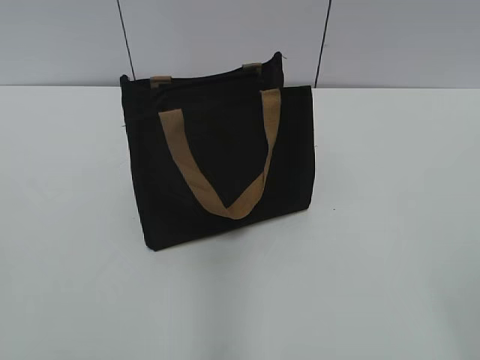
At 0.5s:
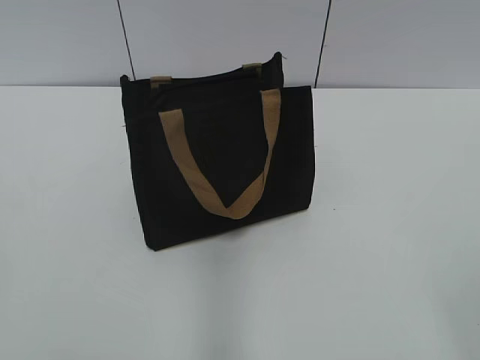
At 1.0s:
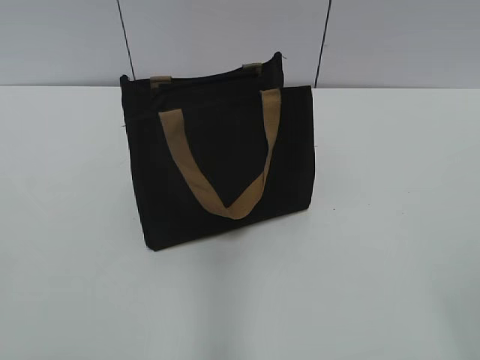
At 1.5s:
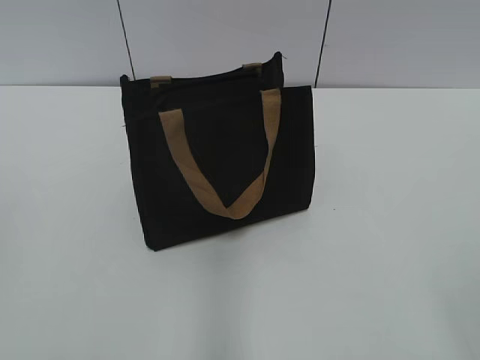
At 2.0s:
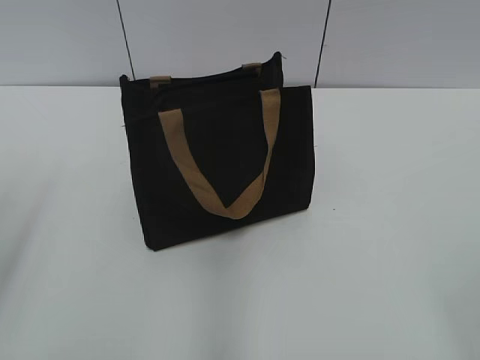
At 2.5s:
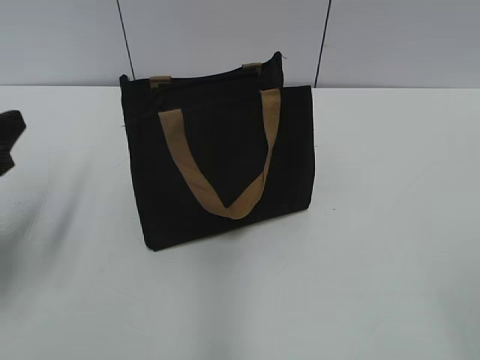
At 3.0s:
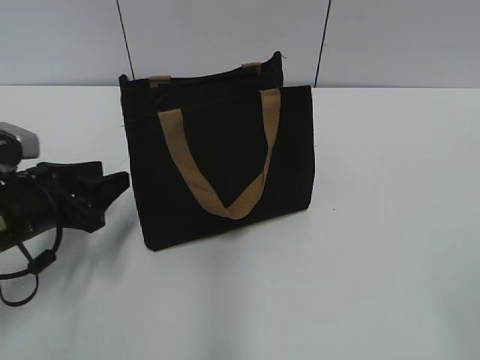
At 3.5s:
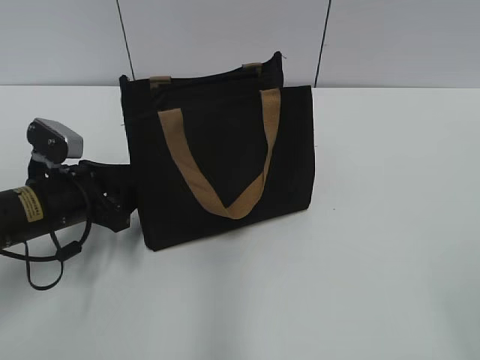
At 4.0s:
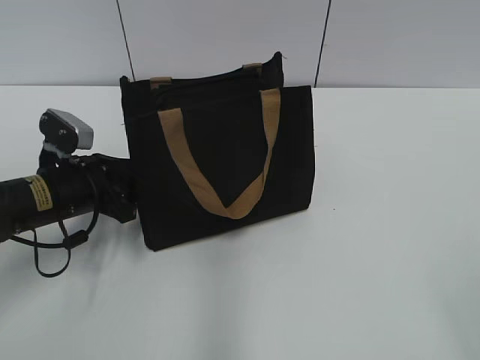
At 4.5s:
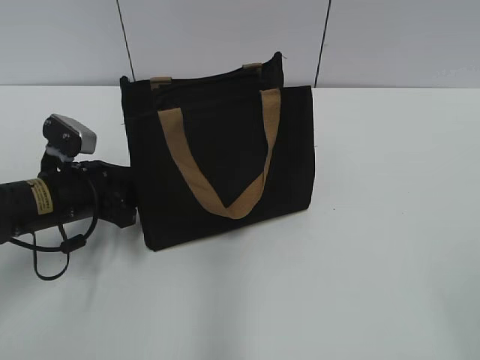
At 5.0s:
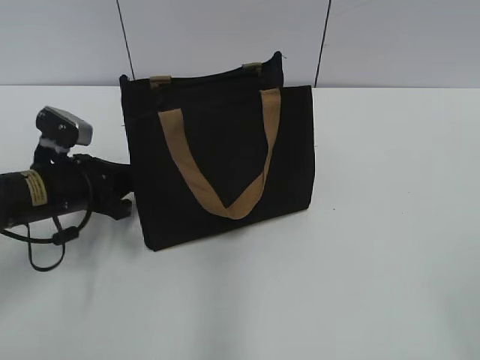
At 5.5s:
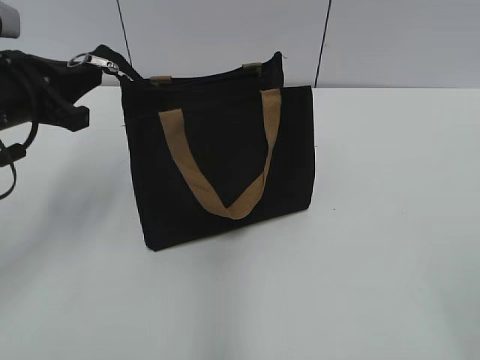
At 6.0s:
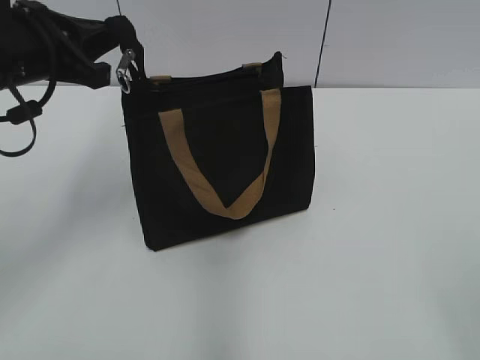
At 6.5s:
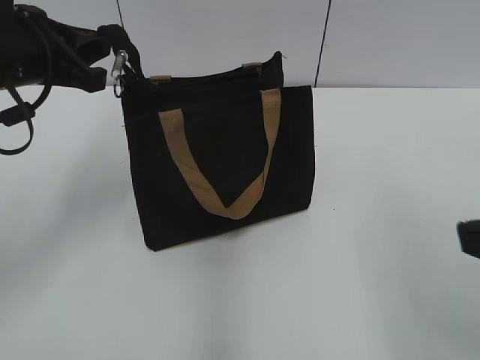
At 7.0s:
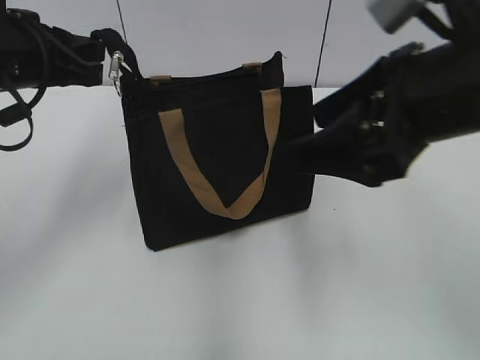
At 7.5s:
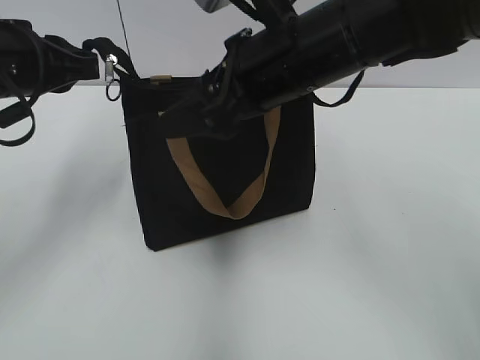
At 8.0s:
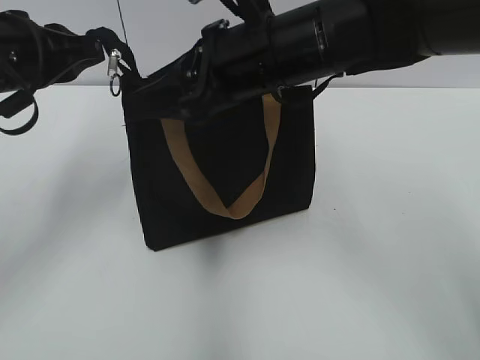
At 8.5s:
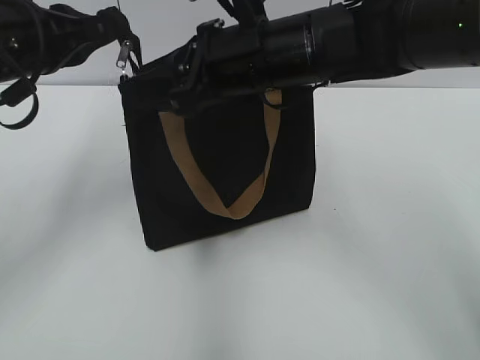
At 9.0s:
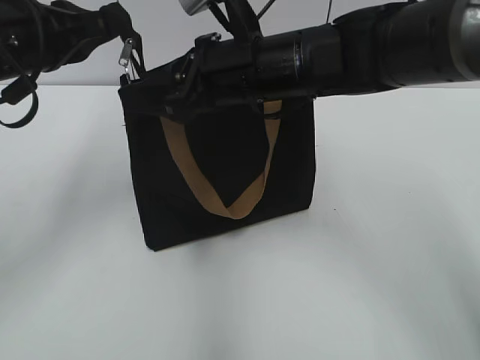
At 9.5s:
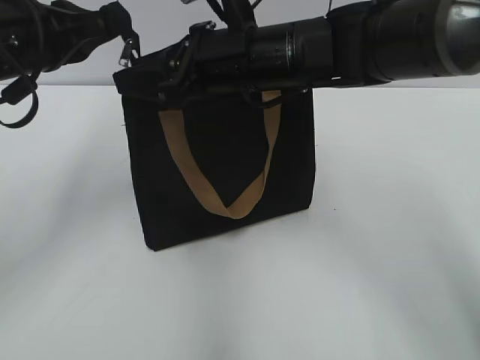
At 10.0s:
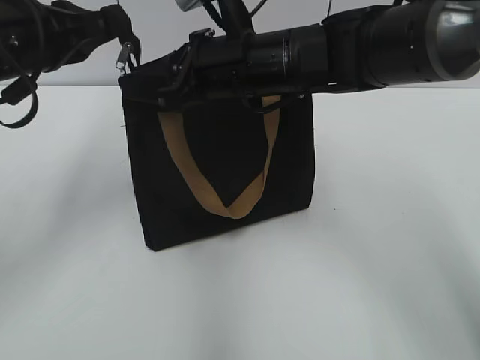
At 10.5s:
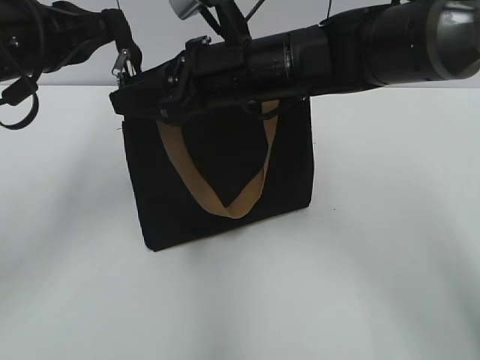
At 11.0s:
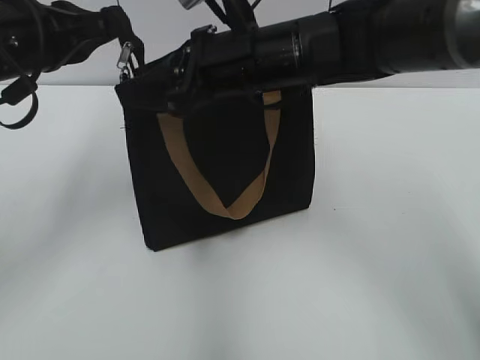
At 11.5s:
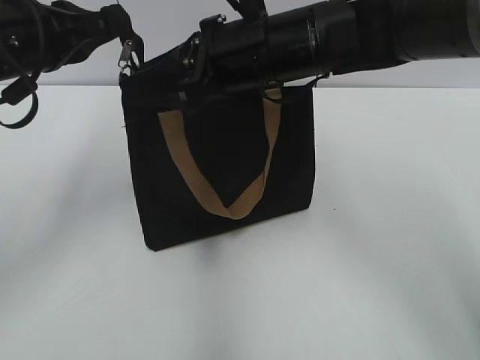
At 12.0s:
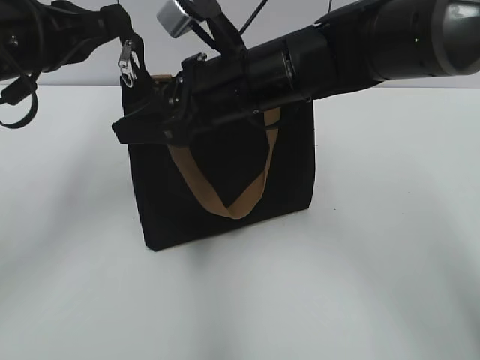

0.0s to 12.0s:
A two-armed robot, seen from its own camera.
2.0s to 4.0s: The left gripper travels downward, forward and to the right by approximately 30 cm.
4.0s to 6.0s: The left gripper goes approximately 15 cm upward, and closes its fingers.
6.0s to 8.0s: The right gripper heads forward and to the left, covering about 40 cm, and closes its fingers.
8.0s to 10.0s: The right gripper shifts by roughly 5 cm.
10.0s to 12.0s: There are only small adjustments of the grippers.

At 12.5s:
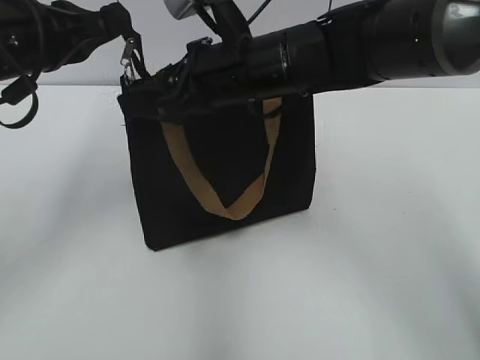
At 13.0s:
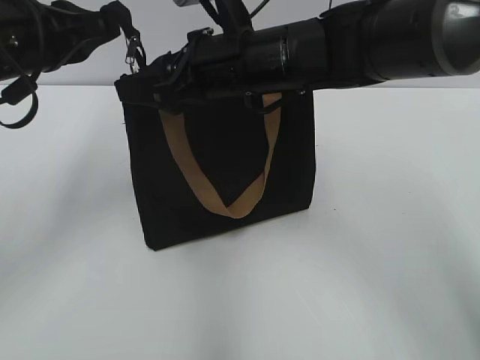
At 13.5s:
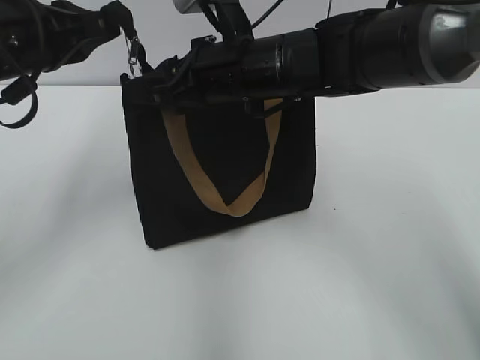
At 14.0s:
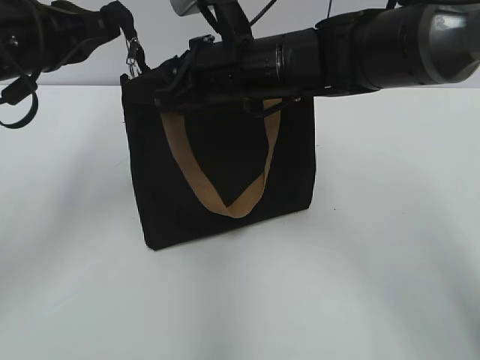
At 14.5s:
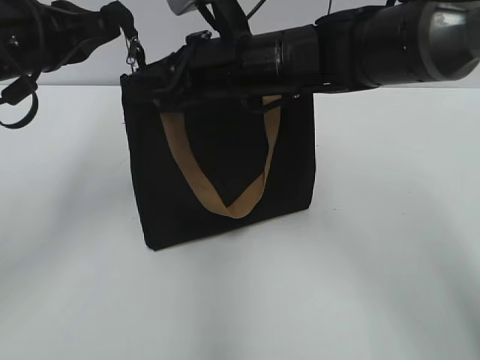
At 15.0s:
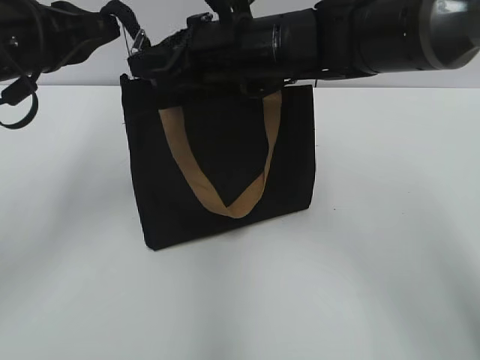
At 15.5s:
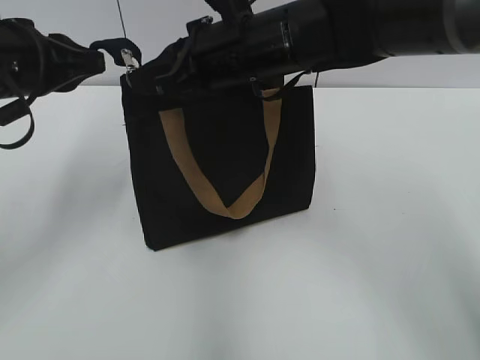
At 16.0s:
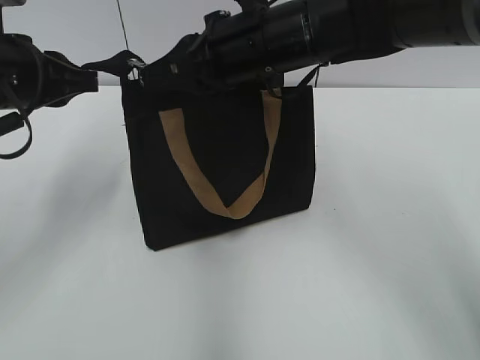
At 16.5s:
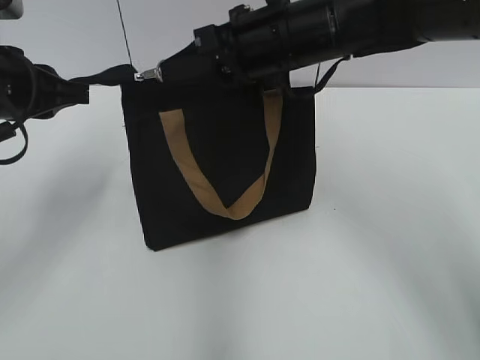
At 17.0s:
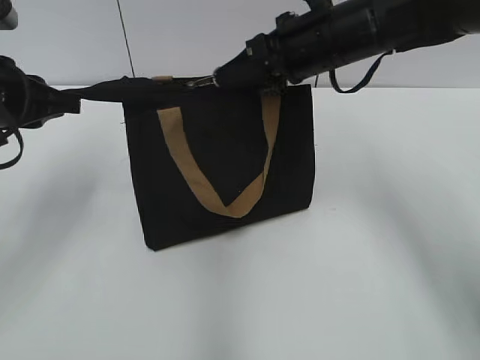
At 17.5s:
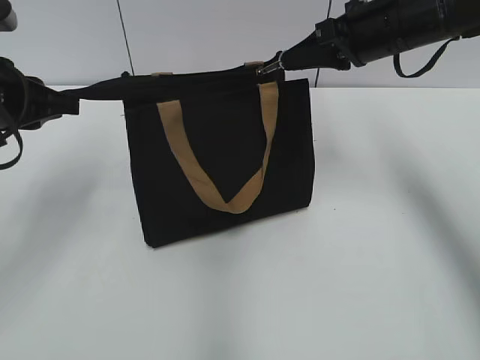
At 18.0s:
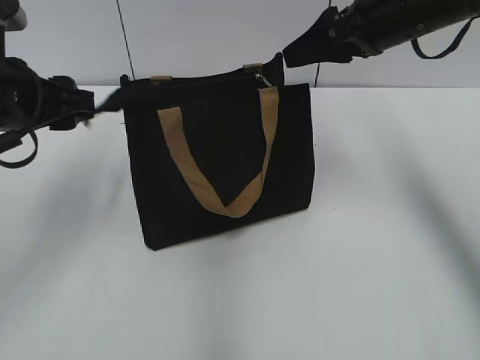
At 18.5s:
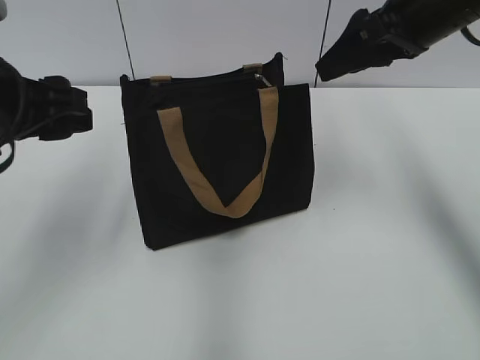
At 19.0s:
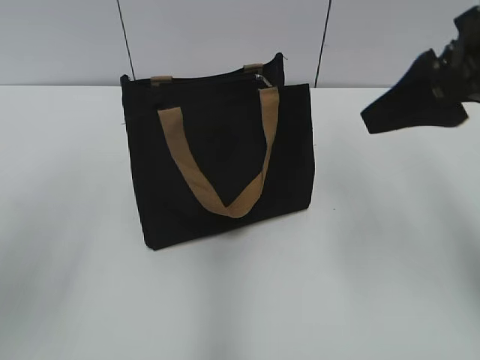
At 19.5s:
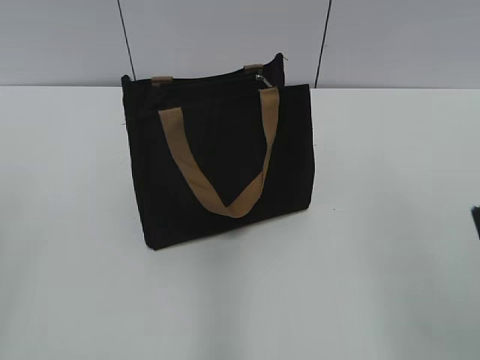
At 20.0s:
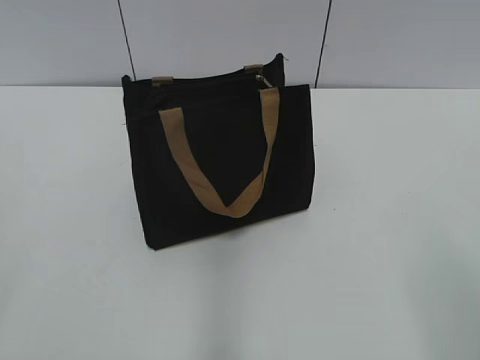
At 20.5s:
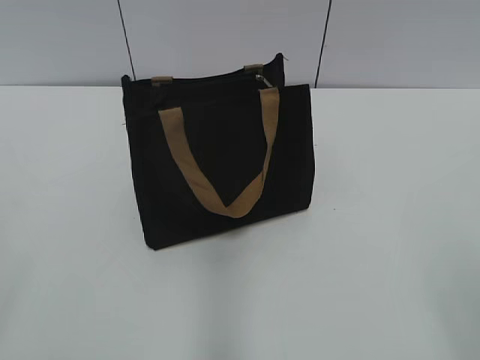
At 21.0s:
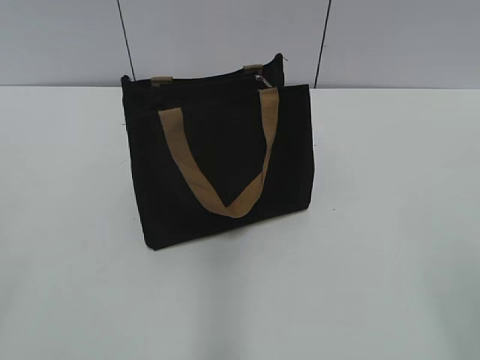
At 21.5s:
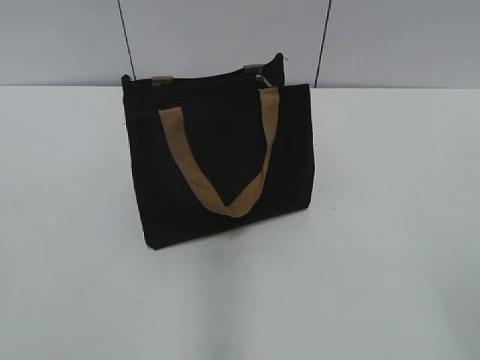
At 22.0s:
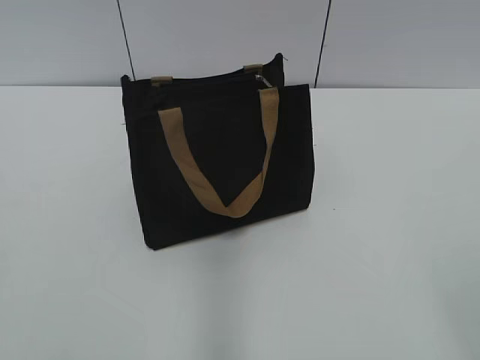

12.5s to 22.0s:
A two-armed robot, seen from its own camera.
Step, 12.5s to 17.5s: Zip up the bag with your right hand.
12.5s to 14.5s: The grippers make only small movements.
14.5s to 16.5s: The right gripper closes.
16.5s to 18.0s: The left gripper opens; the right gripper heads to the right, covering about 10 cm, and opens its fingers.
18.0s to 20.0s: Both grippers travel together backward, some 30 cm.

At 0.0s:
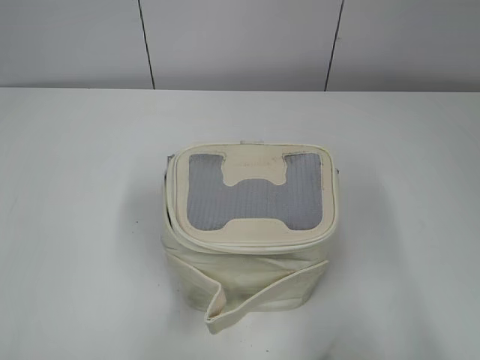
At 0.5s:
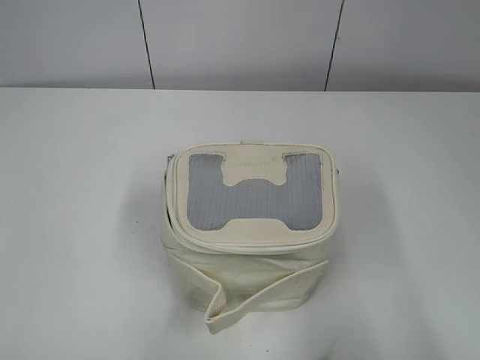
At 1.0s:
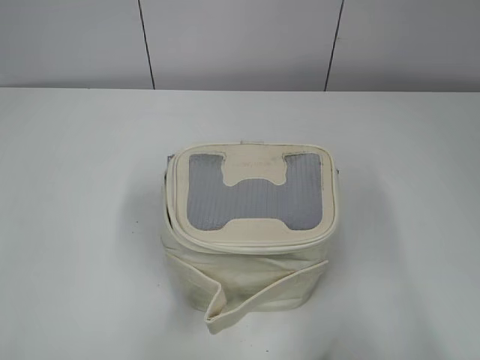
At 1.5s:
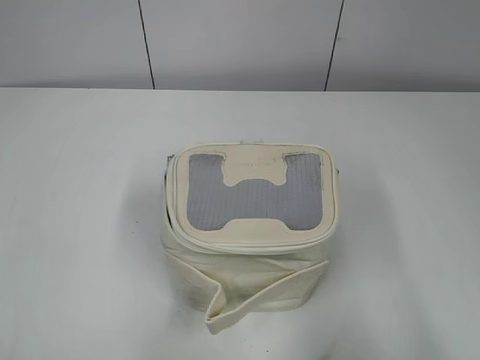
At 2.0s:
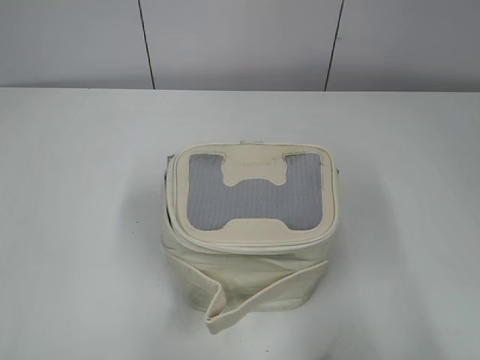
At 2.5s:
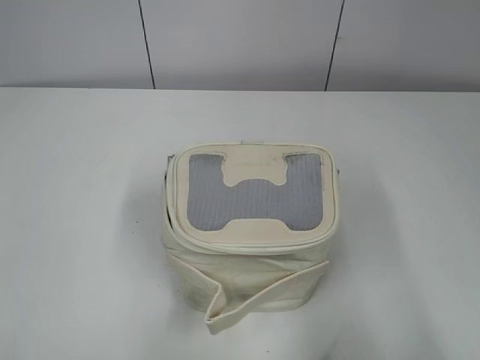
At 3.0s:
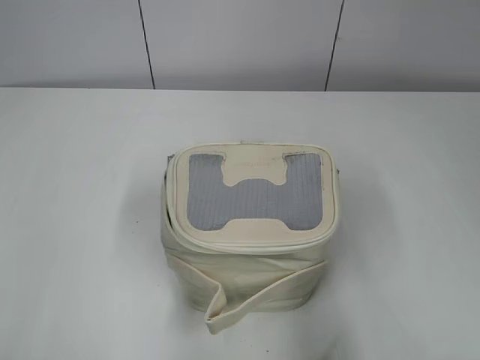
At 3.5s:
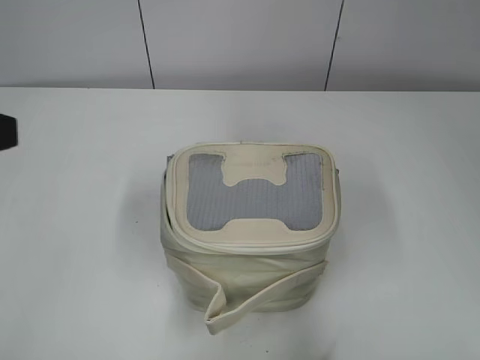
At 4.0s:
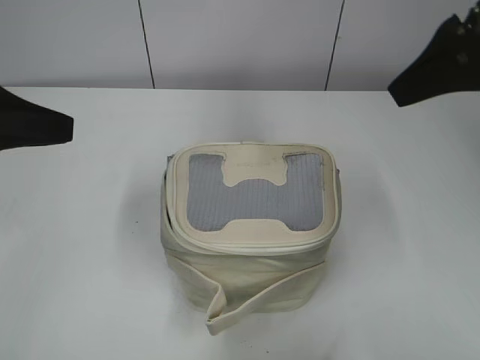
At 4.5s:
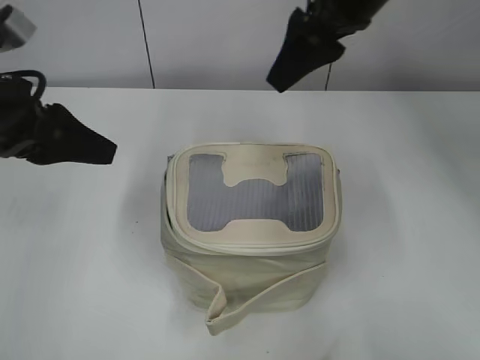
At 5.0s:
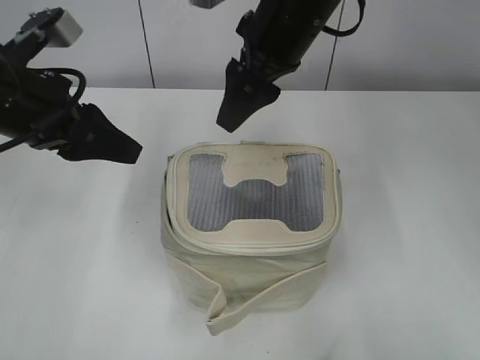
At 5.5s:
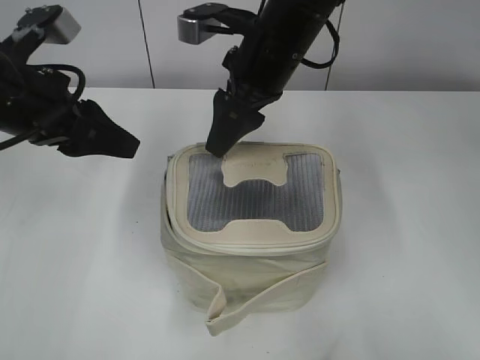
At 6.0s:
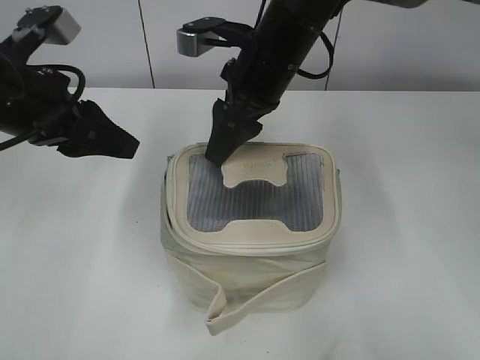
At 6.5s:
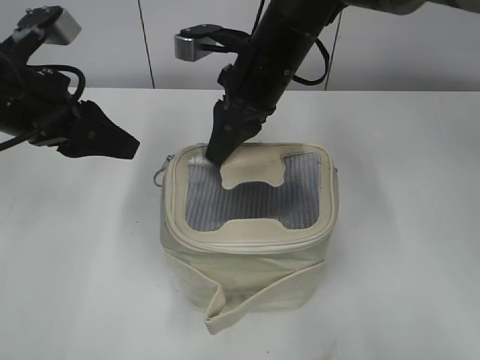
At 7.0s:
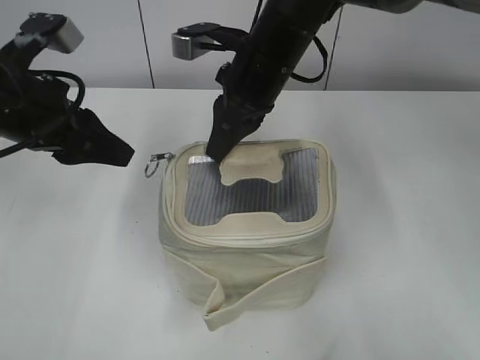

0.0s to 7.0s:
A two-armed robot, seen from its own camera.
2.0s to 3.5s: The right gripper shifts roughly 15 cm forward and upward. The left gripper heads forward, covering about 15 cm.
3.5s to 5.0s: The right gripper goes about 30 cm to the left and forward. Meanwhile the left gripper shifts approximately 15 cm forward, downward and to the right.
5.0s to 7.0s: The right gripper travels downward by roughly 5 cm, and closes.
